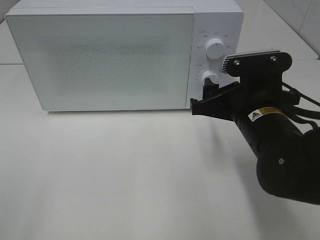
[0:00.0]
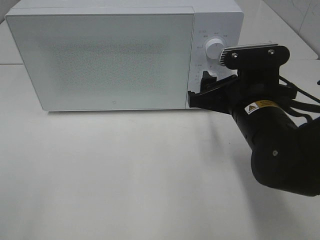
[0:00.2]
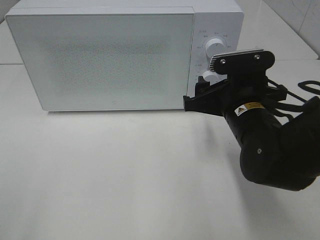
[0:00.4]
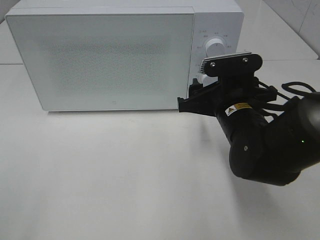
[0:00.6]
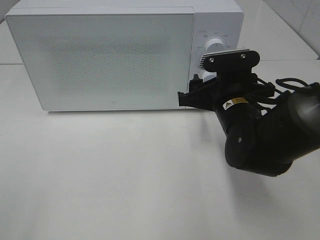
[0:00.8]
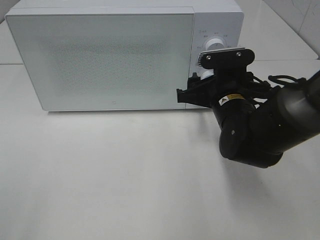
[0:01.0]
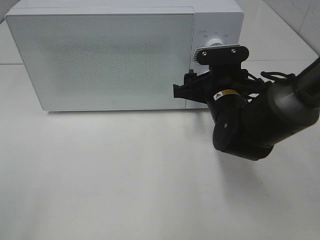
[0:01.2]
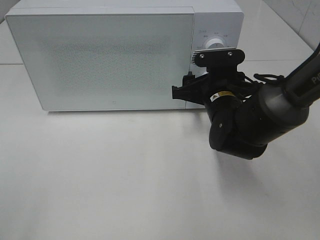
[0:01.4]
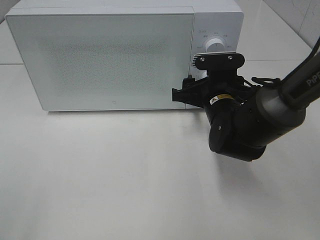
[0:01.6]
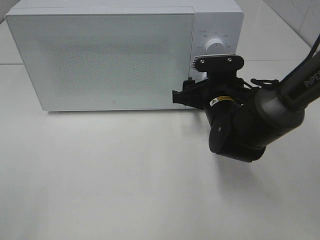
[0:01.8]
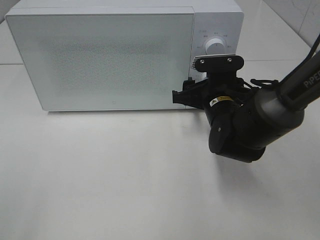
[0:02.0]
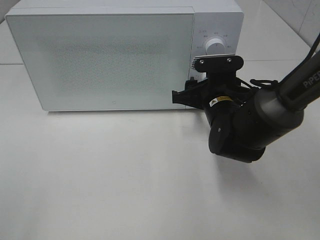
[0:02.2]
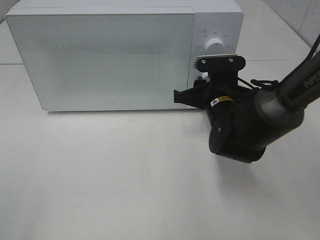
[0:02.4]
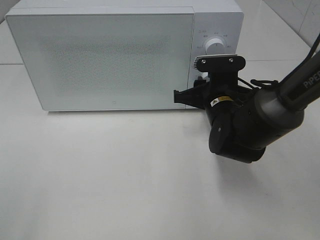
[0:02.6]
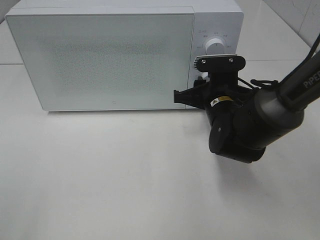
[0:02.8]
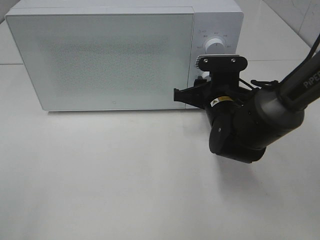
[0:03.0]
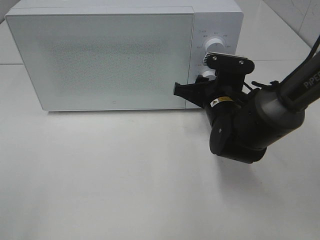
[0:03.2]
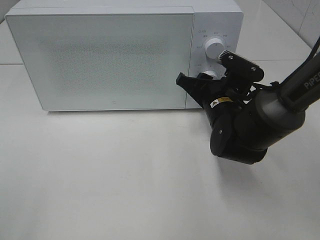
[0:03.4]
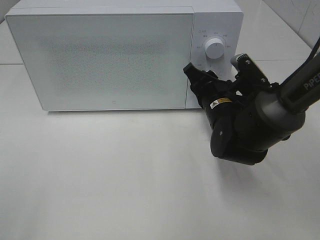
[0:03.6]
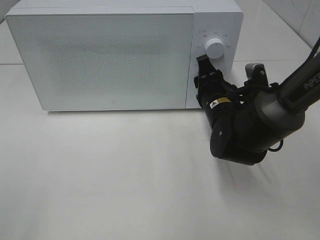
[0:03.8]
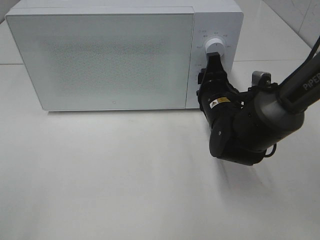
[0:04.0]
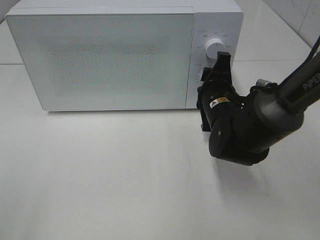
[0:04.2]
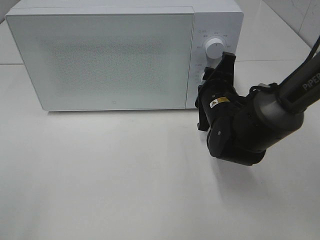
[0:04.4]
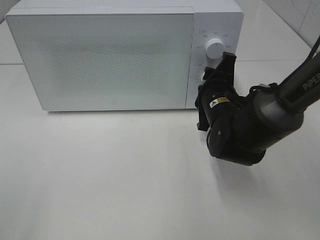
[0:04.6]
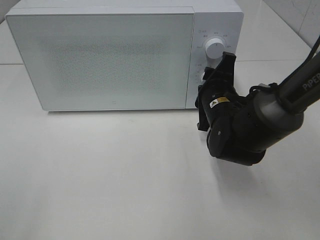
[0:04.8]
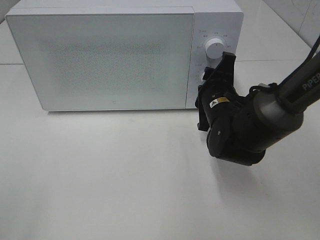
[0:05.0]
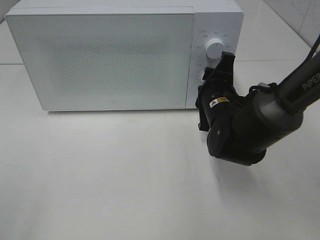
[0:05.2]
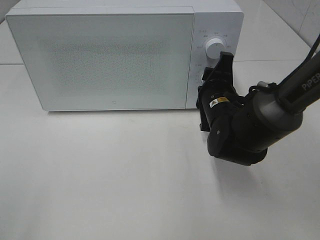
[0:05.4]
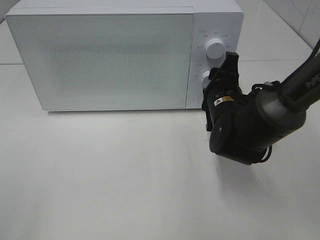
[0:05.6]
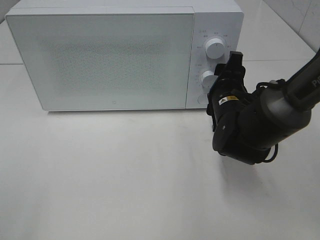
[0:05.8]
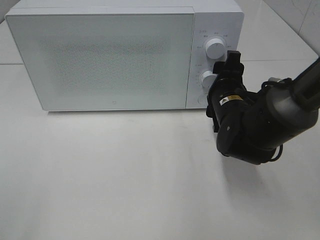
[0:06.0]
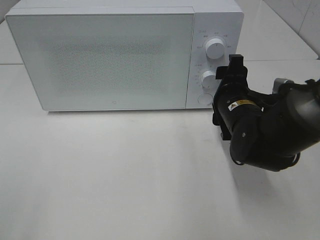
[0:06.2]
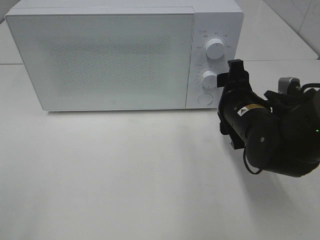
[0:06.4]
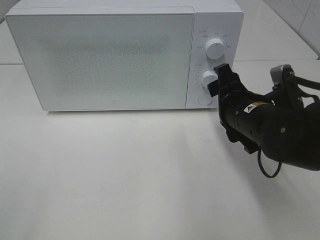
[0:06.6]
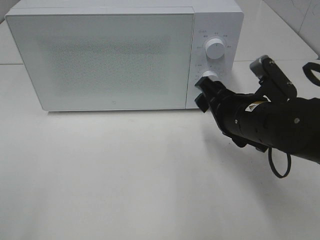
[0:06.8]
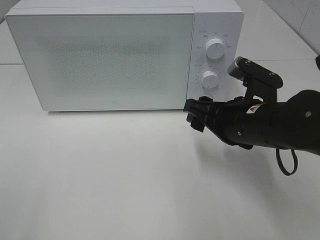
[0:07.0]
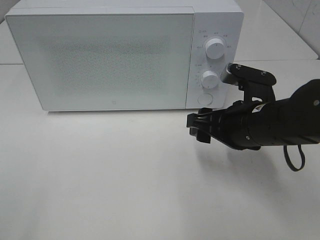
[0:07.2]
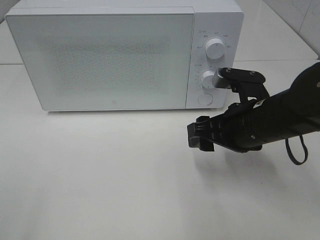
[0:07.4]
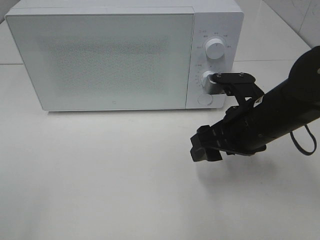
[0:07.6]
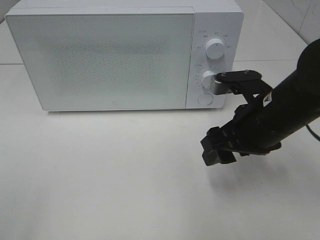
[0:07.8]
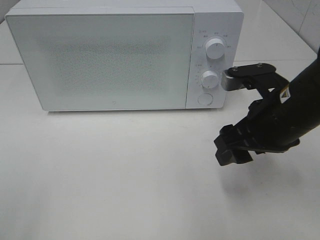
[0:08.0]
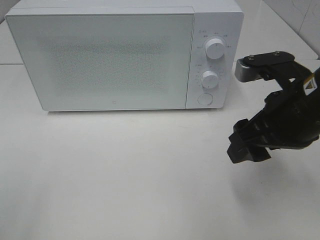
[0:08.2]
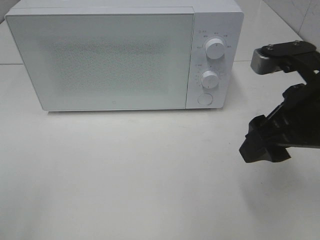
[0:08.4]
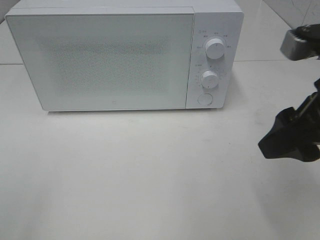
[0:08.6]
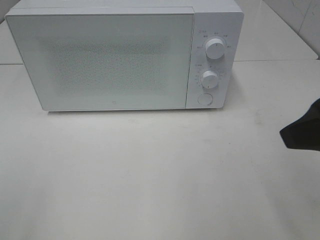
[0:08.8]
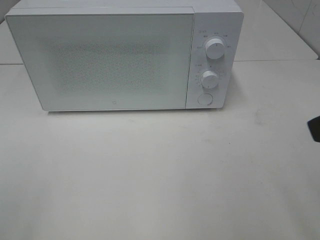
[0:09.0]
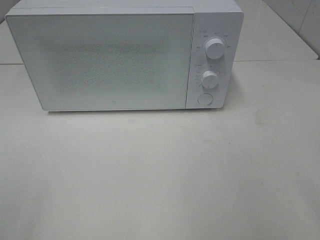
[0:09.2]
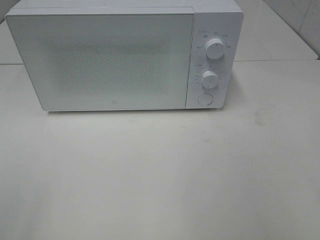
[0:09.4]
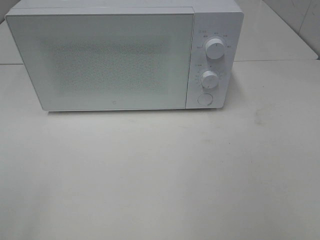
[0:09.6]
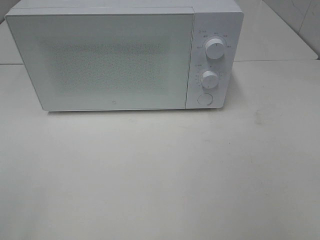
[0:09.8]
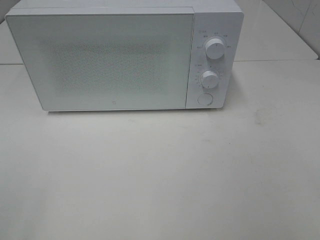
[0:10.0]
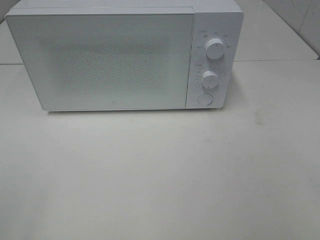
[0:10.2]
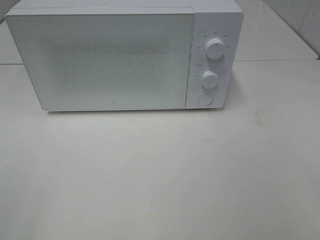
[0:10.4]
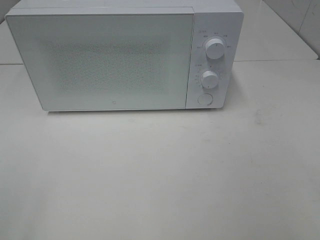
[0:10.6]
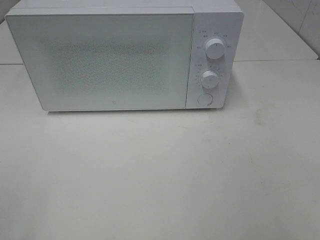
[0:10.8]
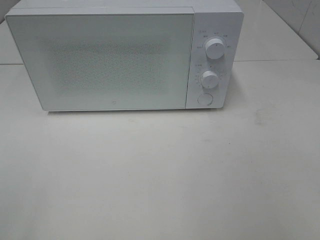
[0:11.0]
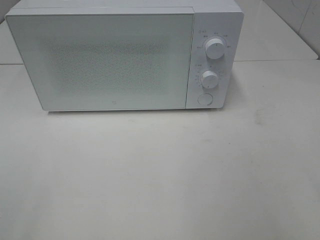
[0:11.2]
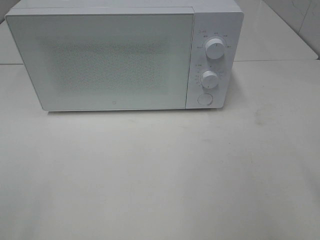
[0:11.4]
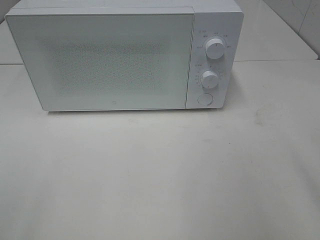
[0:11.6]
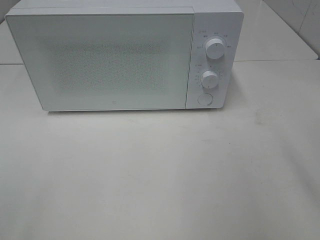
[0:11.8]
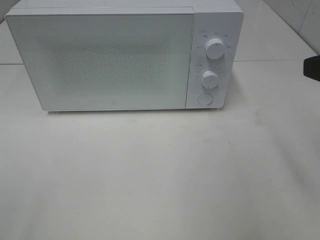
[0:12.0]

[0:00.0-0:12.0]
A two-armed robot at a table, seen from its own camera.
Task of the whole recording: Heat the burger.
Step, 0:00.0 to 0:05.6: Right hand: twist timer button.
0:00.0 to 0:01.6: The right gripper goes approximately 10 cm forward and downward.
0:01.6 to 0:03.0: The right gripper closes its fingers.
0:04.4 to 0:06.0: The right gripper opens its fingers.
0:06.0 to 0:07.6: The right gripper heads backward, covering roughly 5 cm.
0:07.6 to 0:09.0: The right gripper moves upward, backward and to the right, about 20 cm.

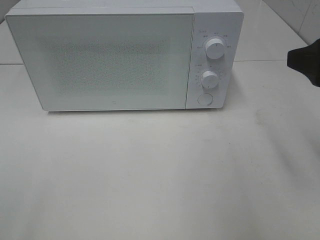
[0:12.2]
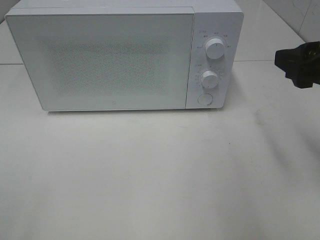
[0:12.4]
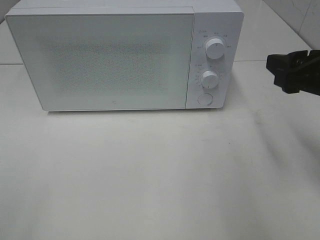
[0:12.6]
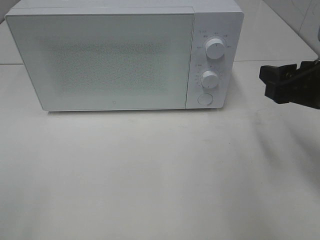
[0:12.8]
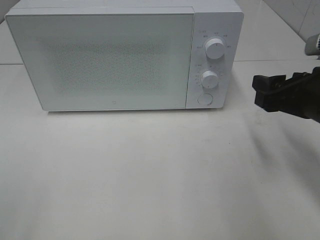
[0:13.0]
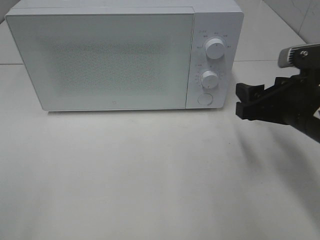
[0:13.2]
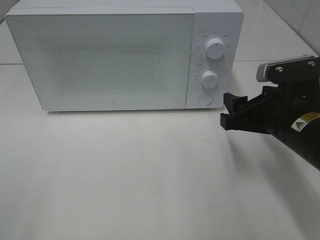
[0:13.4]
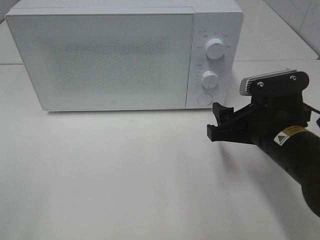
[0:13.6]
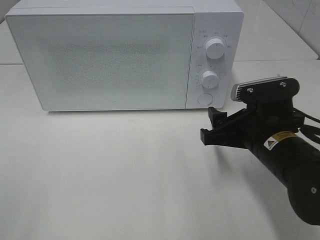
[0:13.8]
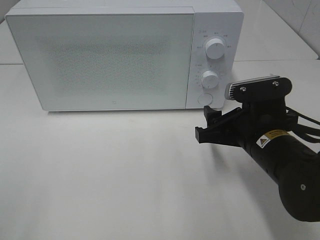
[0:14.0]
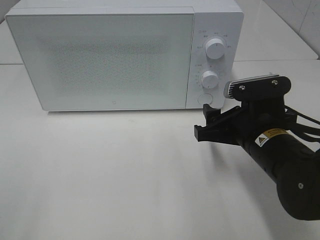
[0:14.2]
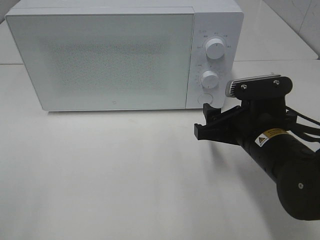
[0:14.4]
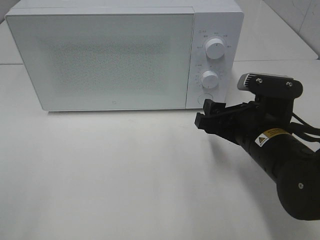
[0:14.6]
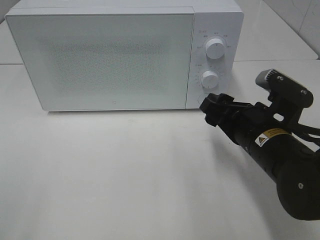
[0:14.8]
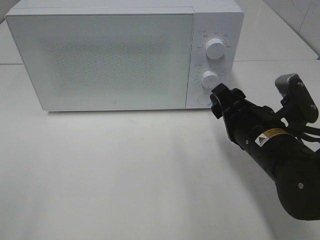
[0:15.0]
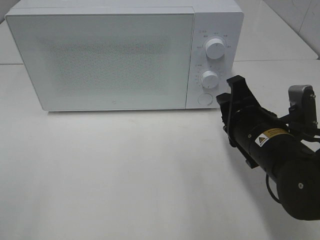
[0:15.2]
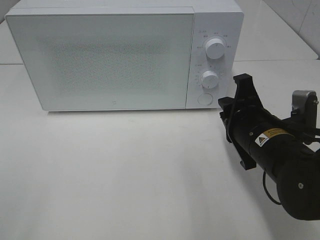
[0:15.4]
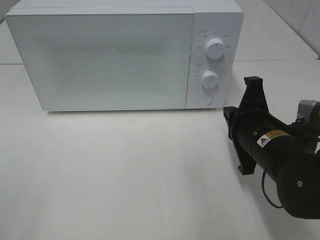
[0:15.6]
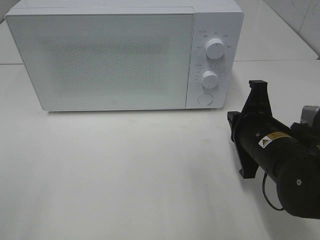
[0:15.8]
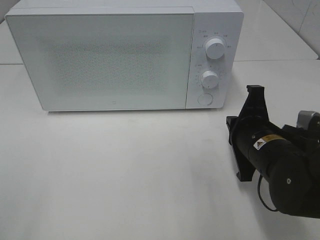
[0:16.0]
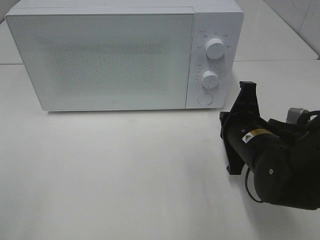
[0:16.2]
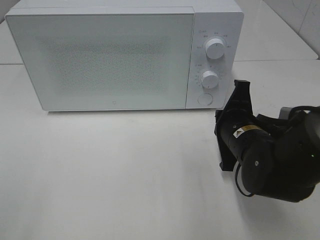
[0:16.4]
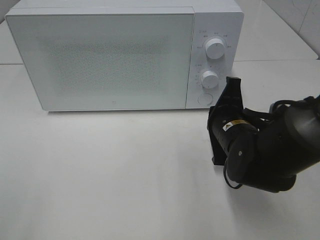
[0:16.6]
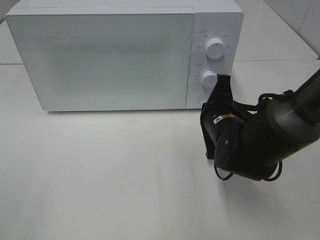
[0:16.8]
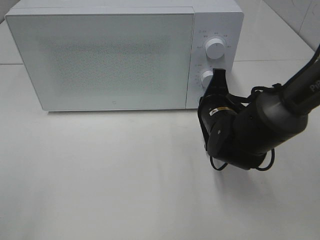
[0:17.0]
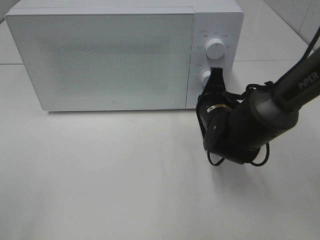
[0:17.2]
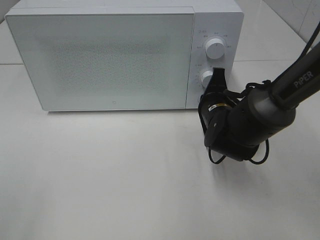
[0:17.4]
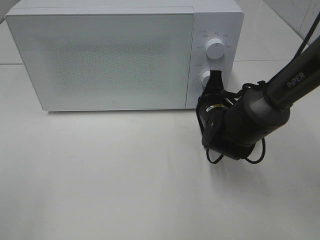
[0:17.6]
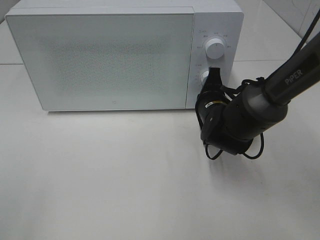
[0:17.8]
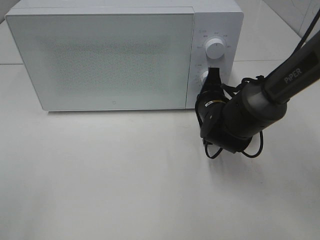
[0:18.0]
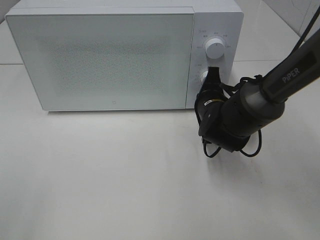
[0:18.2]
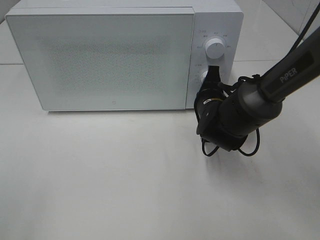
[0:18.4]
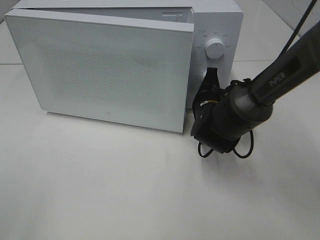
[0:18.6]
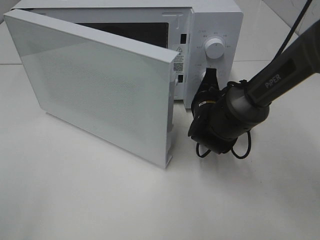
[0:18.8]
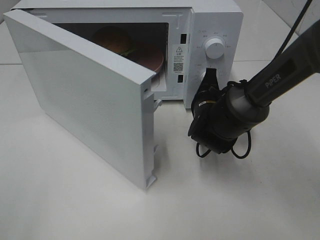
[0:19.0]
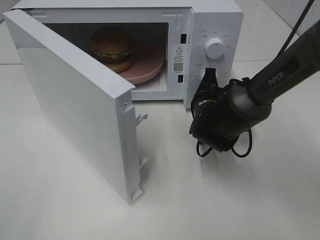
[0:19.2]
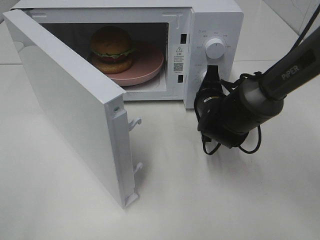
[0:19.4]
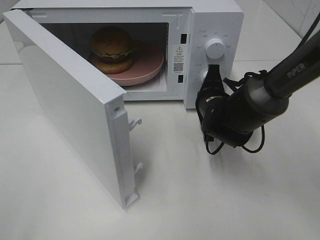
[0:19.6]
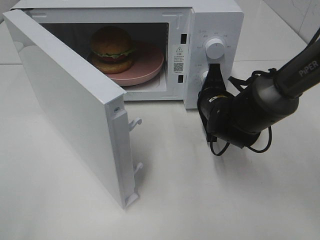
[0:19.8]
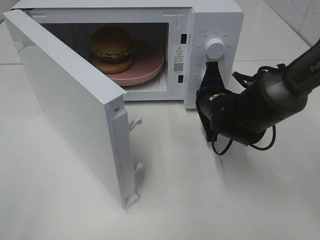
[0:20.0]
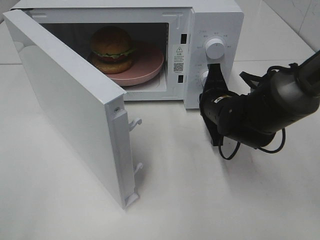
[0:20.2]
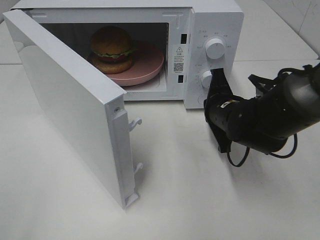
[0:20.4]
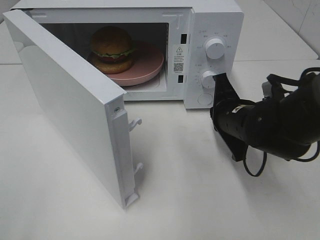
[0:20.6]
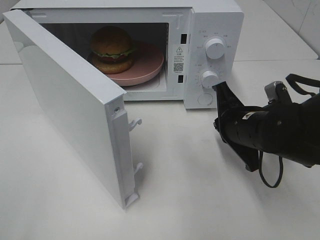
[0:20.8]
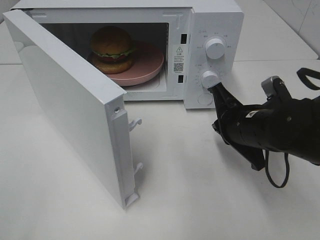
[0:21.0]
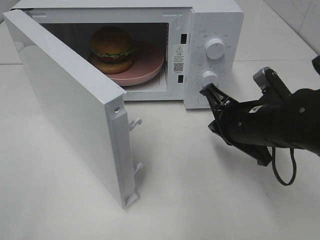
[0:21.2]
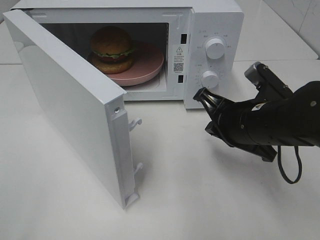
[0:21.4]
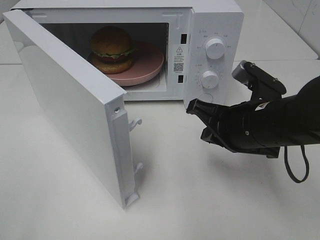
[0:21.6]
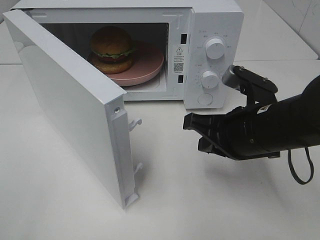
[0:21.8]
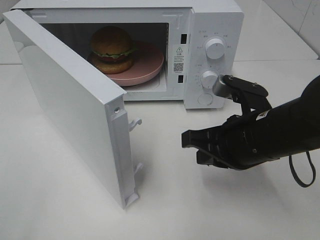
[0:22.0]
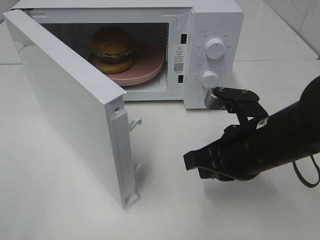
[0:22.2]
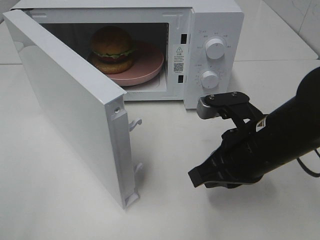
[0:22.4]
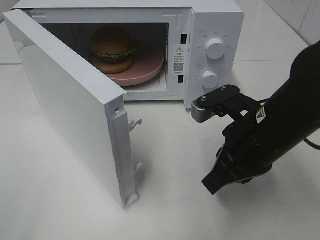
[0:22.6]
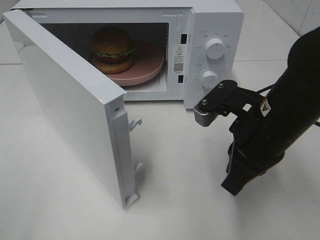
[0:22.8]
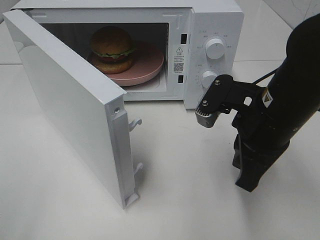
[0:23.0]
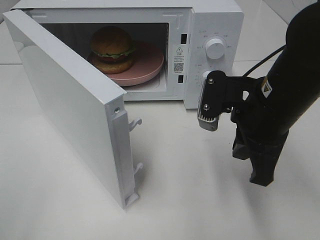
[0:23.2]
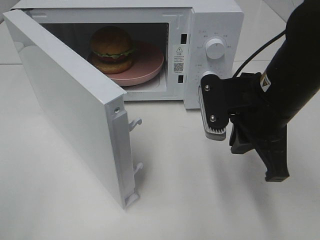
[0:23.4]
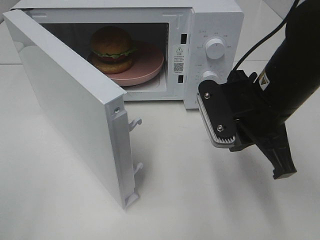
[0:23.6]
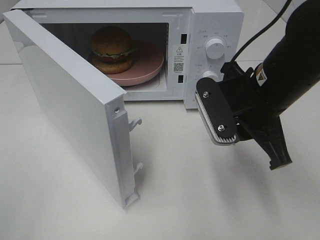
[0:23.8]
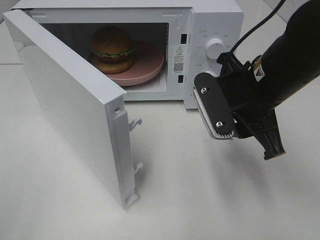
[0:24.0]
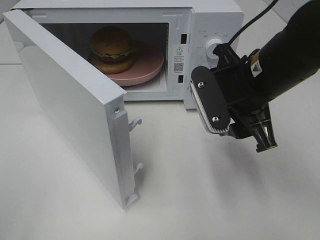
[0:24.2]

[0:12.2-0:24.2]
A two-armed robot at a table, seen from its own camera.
Task of the whole recording: Heat the burger.
Step, 0:12.2 to 0:20.0: Right hand: press the switch.
0:12.2 to 0:13.8: The right gripper moves downward and to the left, some 15 cm.
0:15.2 to 0:16.6: The right gripper shifts by roughly 5 cm, and closes.
0:16.6 to 0:18.2: The right gripper shifts some 10 cm forward.
0:19.8 to 0:21.2: The right gripper is displaced backward and upward by approximately 10 cm.
0:21.2 to 0:22.6: The right gripper moves some 5 cm.
0:22.6 to 0:24.2: The right gripper shifts by approximately 5 cm, and opens up.
